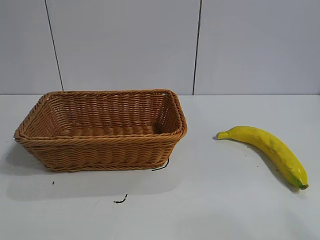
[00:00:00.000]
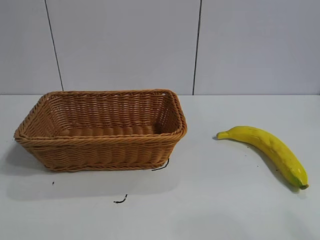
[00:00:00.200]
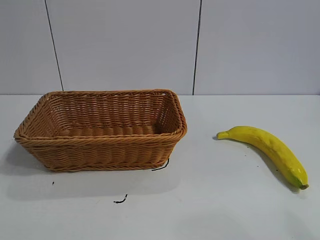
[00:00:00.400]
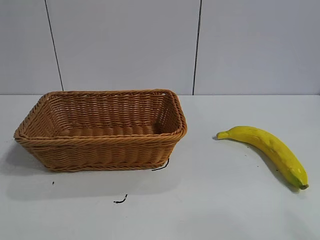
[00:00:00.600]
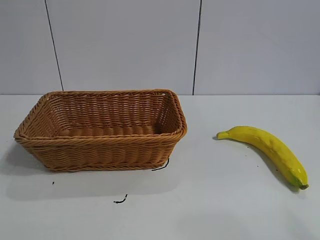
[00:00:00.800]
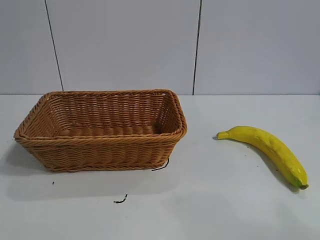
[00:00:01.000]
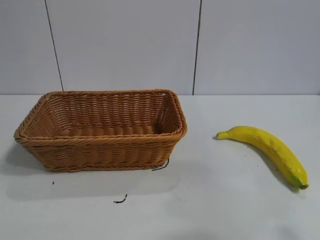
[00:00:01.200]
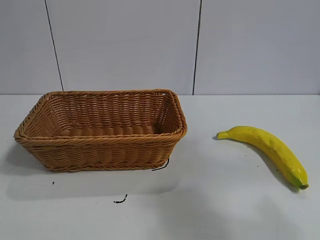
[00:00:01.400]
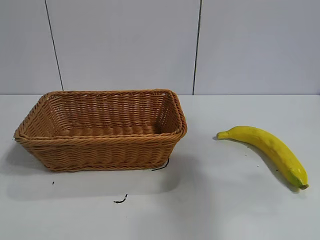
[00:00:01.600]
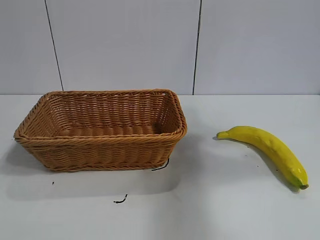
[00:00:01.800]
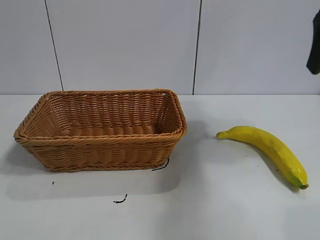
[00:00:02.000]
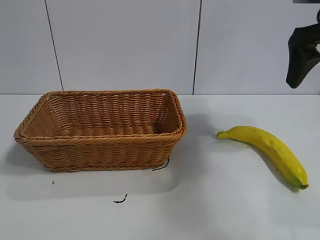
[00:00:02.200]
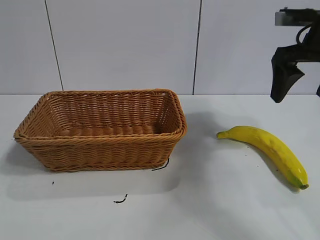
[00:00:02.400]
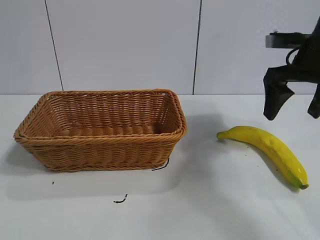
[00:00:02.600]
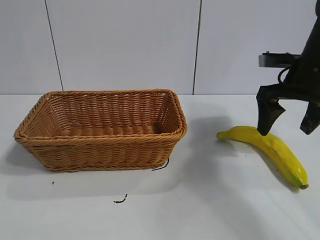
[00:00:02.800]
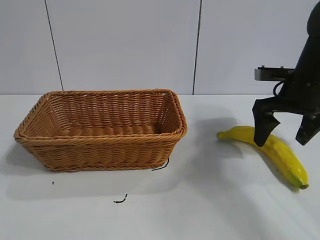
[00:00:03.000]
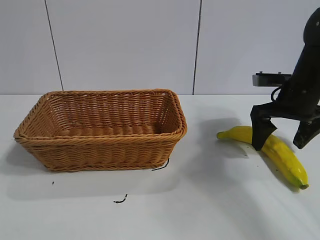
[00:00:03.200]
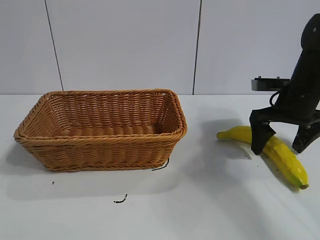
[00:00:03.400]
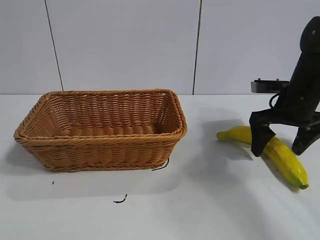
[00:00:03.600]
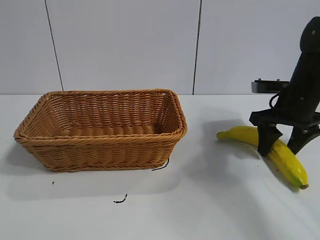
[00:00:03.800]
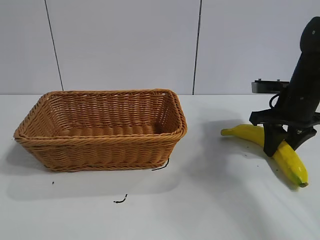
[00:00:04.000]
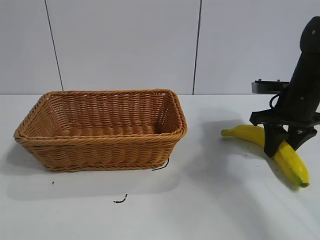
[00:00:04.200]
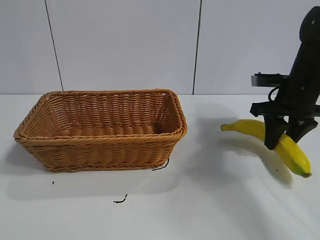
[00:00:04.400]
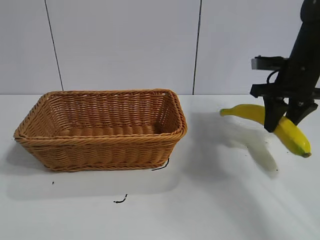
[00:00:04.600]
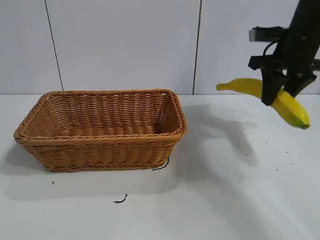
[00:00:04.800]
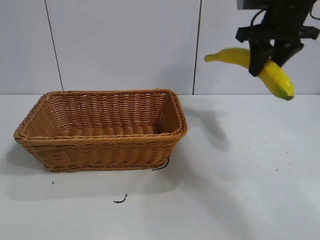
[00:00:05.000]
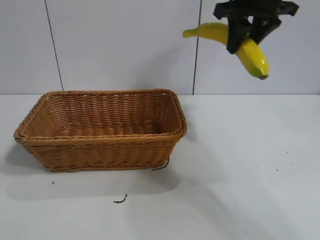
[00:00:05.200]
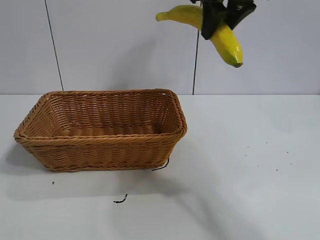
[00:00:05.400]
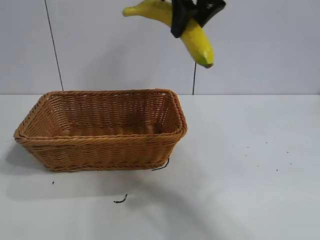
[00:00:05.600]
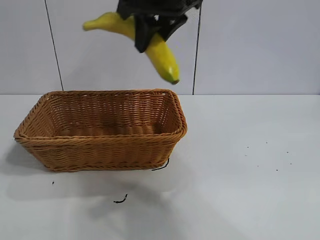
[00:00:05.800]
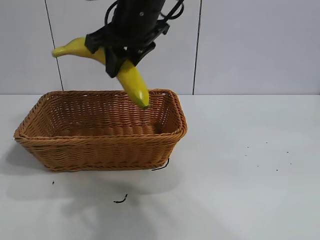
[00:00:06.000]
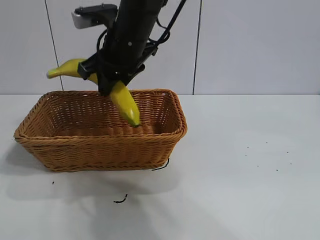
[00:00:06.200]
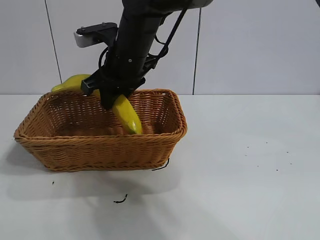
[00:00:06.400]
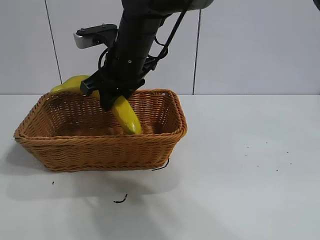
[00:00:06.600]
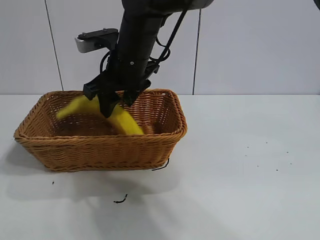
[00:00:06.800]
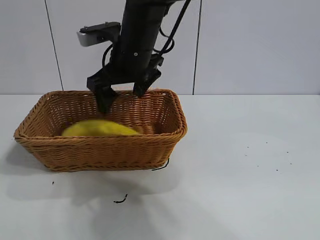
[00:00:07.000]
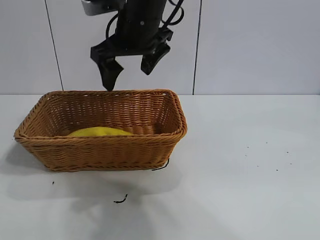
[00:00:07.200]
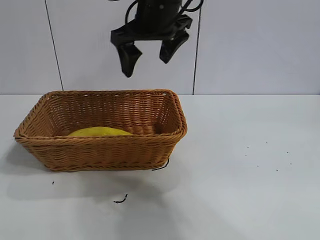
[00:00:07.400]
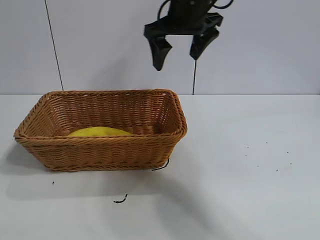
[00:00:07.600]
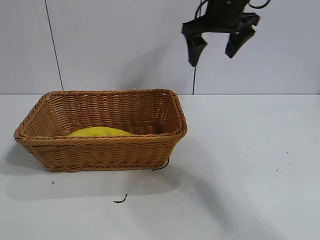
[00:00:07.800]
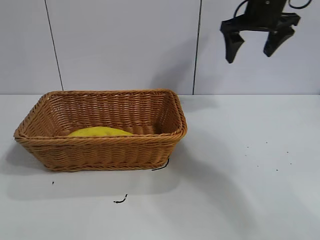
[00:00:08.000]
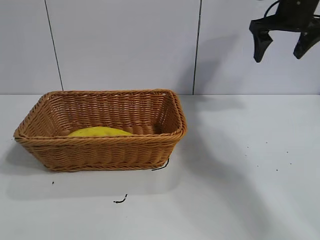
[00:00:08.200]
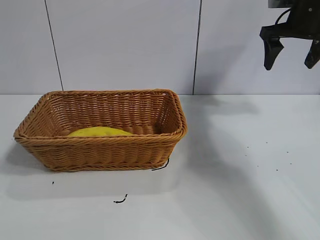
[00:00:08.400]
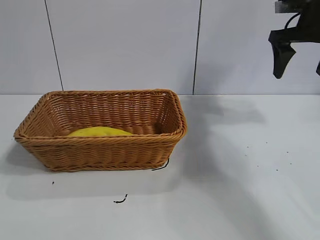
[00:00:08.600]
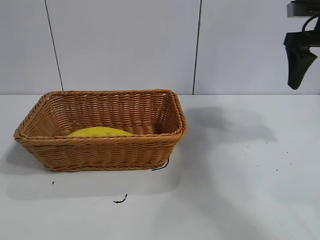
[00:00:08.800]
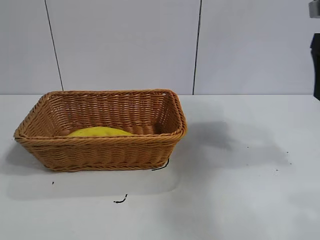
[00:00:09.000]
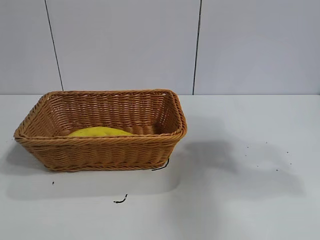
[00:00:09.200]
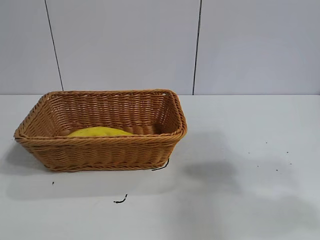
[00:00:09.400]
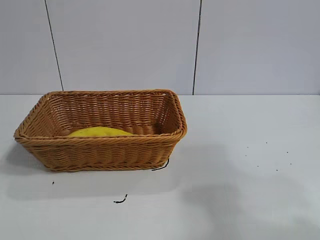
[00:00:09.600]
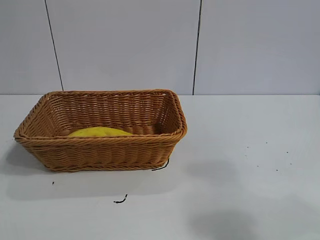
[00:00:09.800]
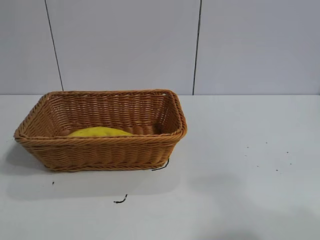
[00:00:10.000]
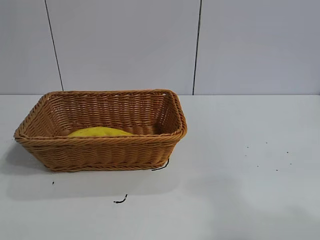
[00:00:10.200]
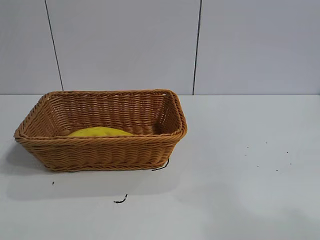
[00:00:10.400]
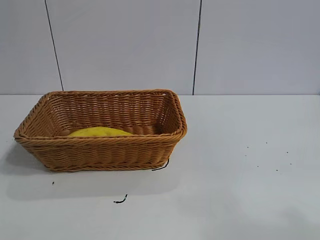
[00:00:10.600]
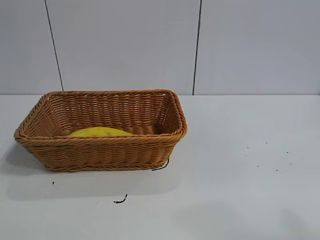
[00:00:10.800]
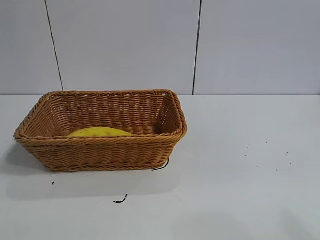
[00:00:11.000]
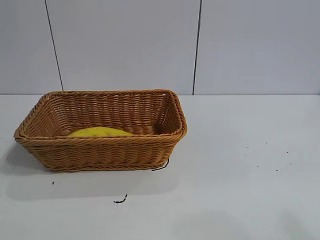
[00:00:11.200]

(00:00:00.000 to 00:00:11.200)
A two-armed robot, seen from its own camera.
Task of the whole recording: pick up the banana and put it into the basket.
Step, 00:00:02.000 - 00:00:04.200: Grasp the banana with right gripper.
Step, 00:00:04.600 - 00:00:06.800: Place the banana in the basket with right gripper.
